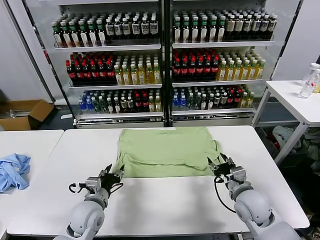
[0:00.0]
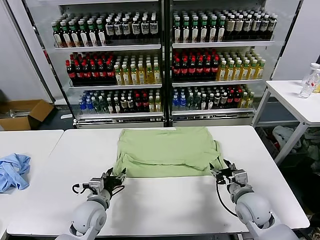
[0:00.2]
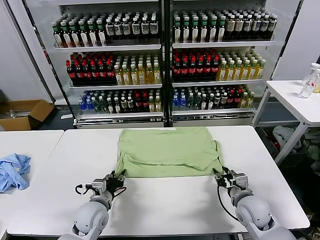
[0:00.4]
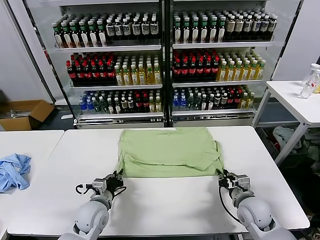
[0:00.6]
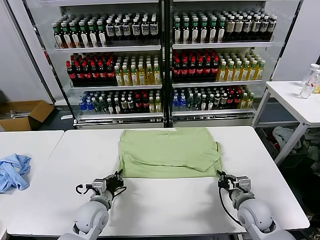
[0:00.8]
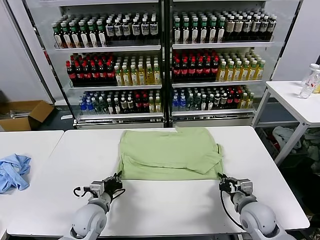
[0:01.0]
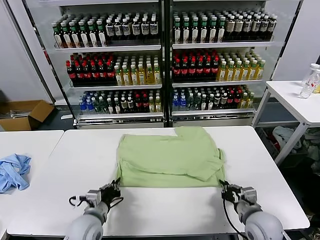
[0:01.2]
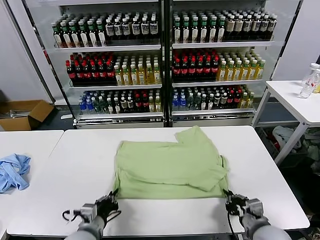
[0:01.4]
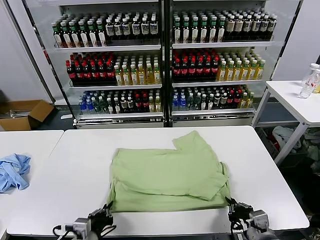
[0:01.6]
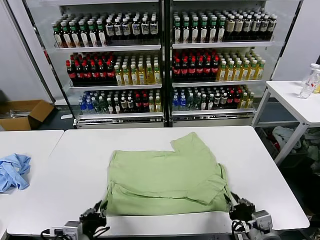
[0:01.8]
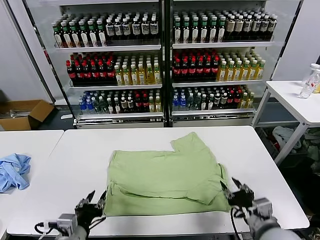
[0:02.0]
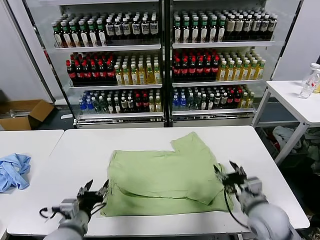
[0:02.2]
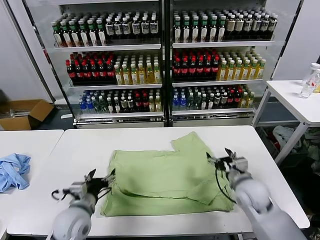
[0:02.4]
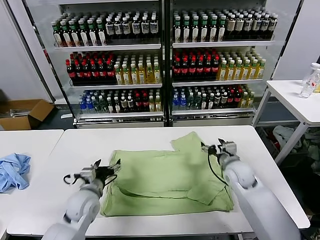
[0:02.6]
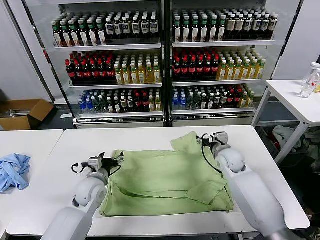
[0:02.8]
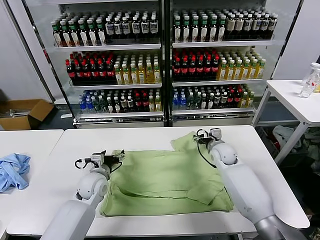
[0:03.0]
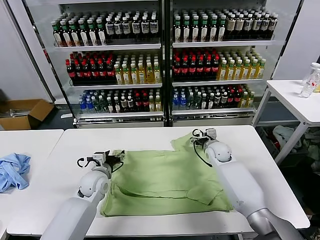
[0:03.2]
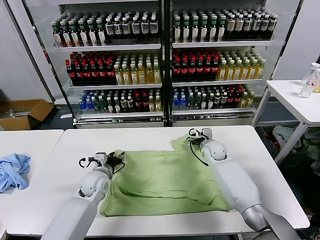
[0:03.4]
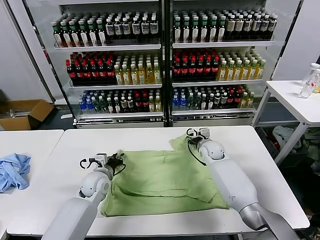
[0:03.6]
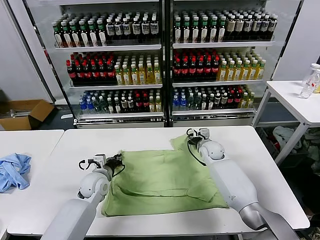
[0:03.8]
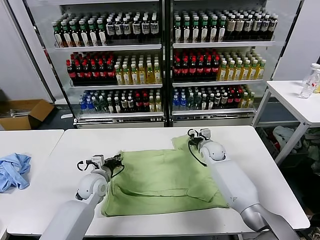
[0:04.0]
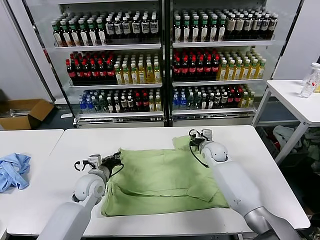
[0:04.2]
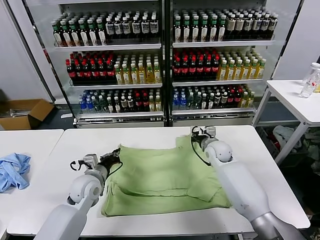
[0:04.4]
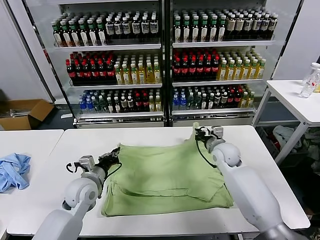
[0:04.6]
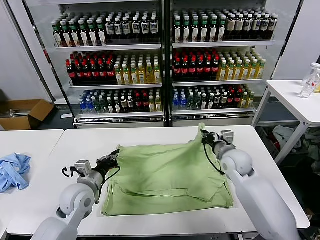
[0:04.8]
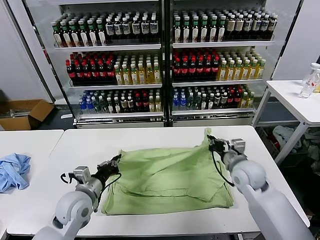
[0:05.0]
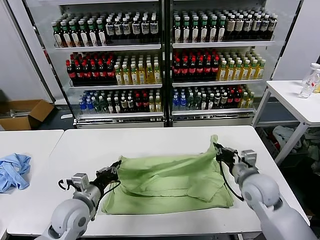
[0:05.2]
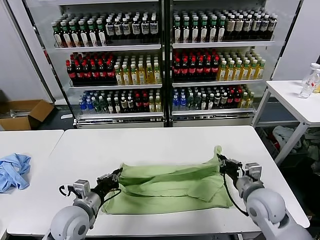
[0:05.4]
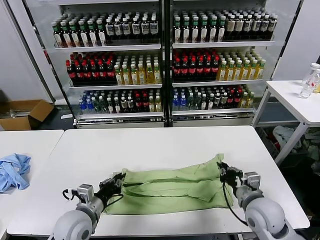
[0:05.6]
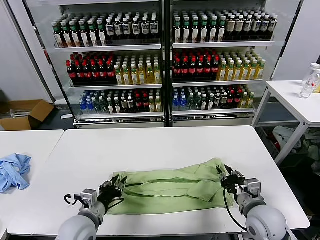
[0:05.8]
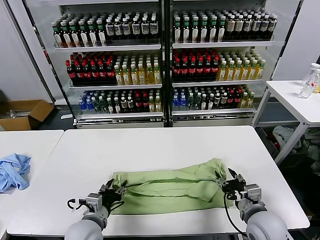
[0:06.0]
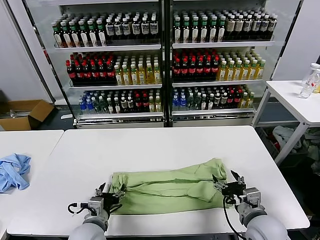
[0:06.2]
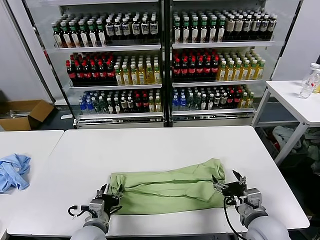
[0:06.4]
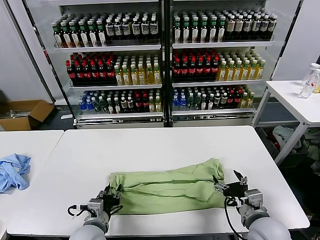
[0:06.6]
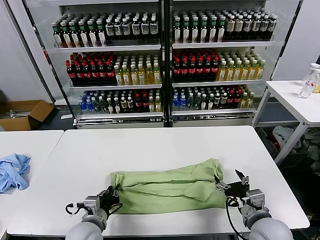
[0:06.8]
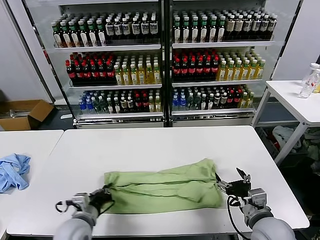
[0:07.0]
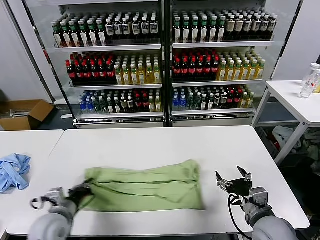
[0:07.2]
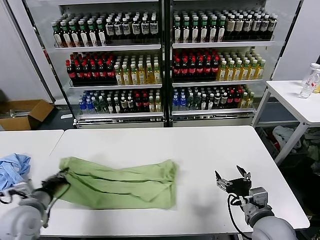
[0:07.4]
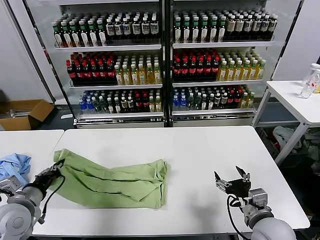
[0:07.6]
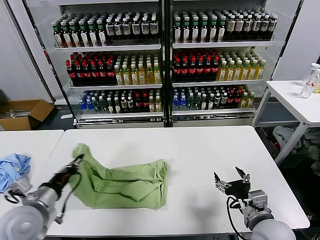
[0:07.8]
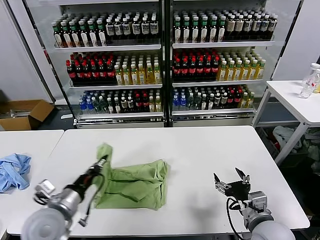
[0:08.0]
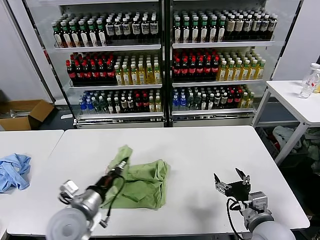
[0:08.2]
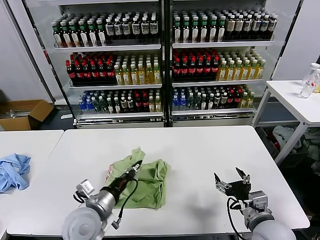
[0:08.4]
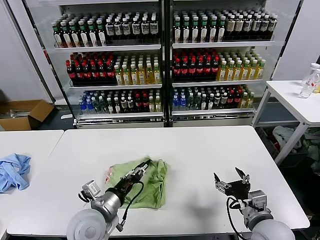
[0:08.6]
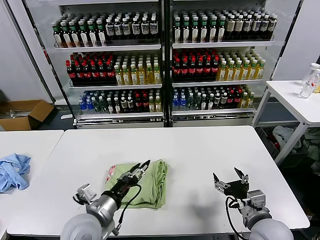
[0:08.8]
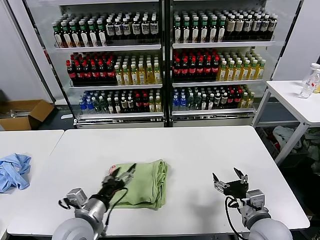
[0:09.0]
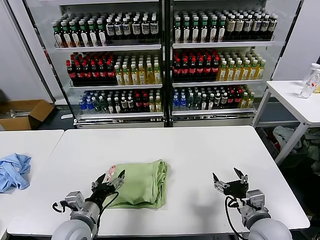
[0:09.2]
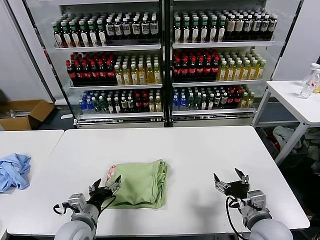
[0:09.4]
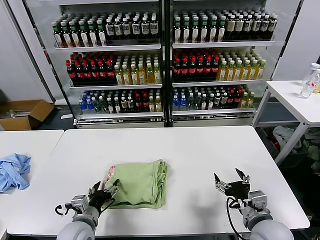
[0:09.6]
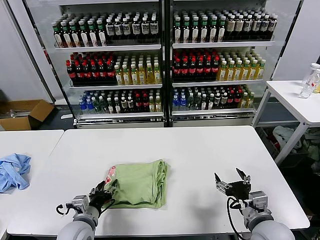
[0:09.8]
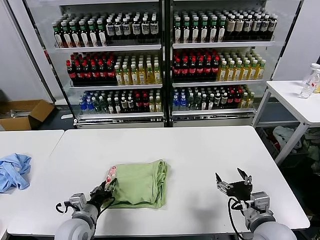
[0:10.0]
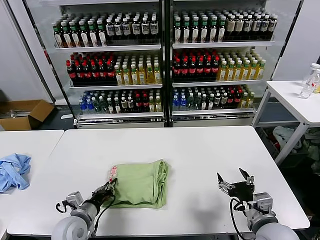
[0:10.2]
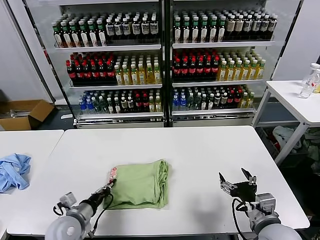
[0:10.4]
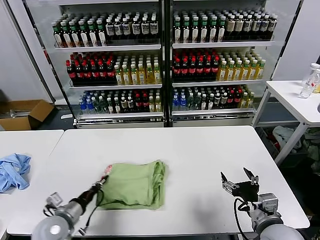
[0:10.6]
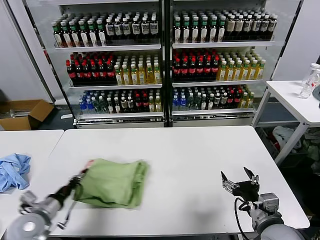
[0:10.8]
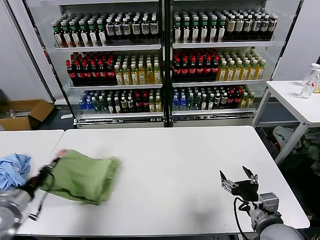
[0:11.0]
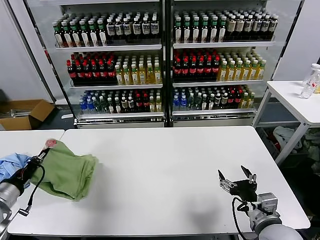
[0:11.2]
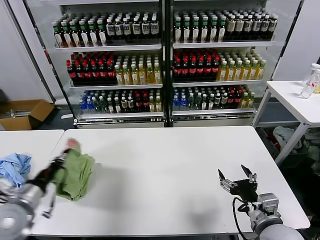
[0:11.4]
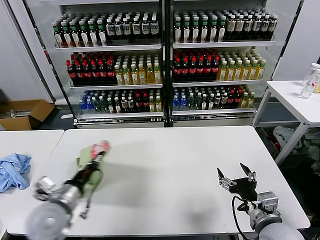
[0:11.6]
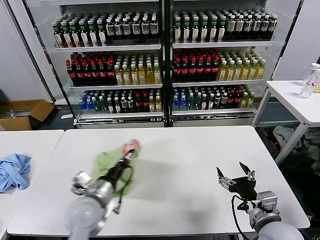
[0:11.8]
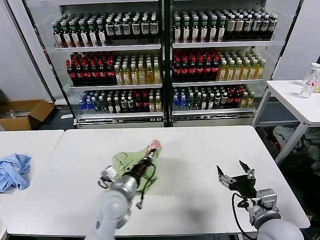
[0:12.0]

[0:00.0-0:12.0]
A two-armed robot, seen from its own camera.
Task of the whole recording: fold and organize the clothes.
Step, 0.0 to 1.6 s: Drag the clothes downward with both gripper.
Step, 2.0 to 4.0 s: use both grippers simultaneously to clamp the upper edge of the clothing fabric.
Step, 4.2 to 5.8 s: use both grippers to drag the upper edge of the fabric backward and fold it over the lower edge.
Step, 6.0 to 7.0 s: use the left gripper to clamp the left edge of the fabric.
Step, 7.2 to 8.6 s: use the left gripper to drag the left edge of the fabric to the left and folds it over the right edge.
0.0 to 1.6 s: The grippers both shift backward by roughly 15 cm. The right gripper closes up. Meanwhile the left gripper closes up.
1.6 to 3.0 s: The right gripper is displaced forward by some 35 cm, and opens its fingers. Meanwhile the left gripper heads forward, covering roughly 25 cm, and opens.
3.0 to 4.4 s: The right gripper closes its fingers. The left gripper closes its fingers.
4.4 to 6.0 s: The left gripper heads backward, covering roughly 15 cm, and opens, while the right gripper is displaced backward by some 25 cm, and opens up.
6.0 to 7.6 s: The left gripper moves to the left and upward, some 20 cm, and closes up.
7.6 to 9.0 s: The left gripper shifts approximately 15 cm to the right, and opens.
9.0 to 10.4 s: The left gripper moves downward and to the left, some 10 cm, and closes up.
10.4 to 12.0 s: The left gripper goes about 15 cm to the right and upward.

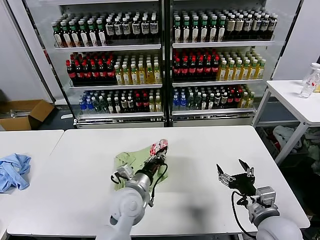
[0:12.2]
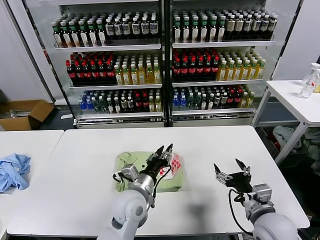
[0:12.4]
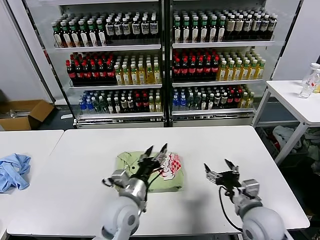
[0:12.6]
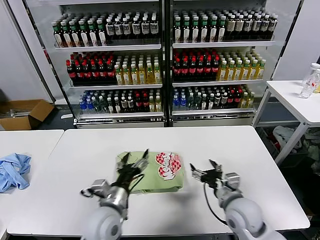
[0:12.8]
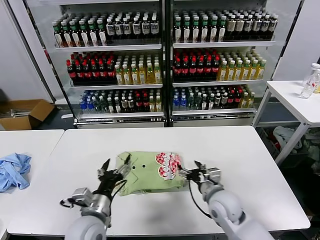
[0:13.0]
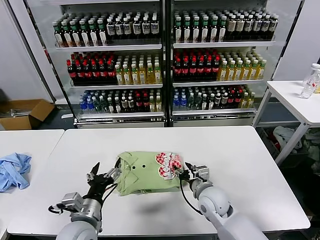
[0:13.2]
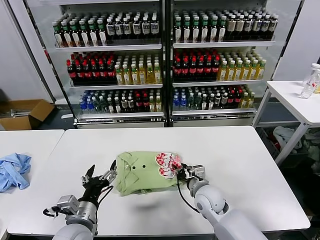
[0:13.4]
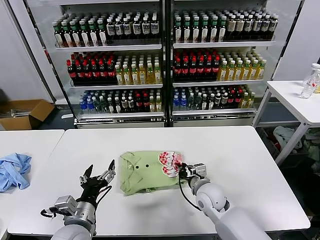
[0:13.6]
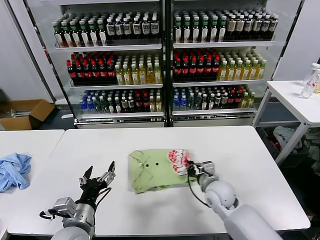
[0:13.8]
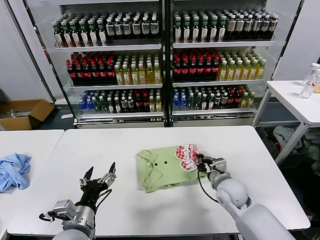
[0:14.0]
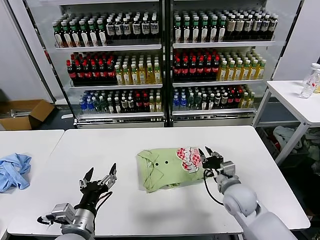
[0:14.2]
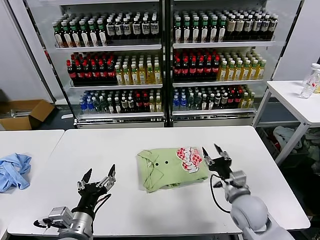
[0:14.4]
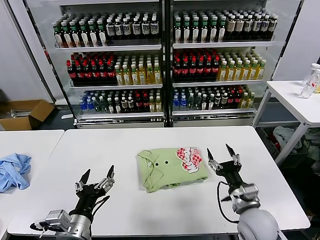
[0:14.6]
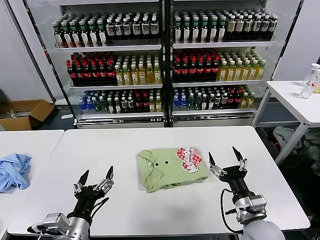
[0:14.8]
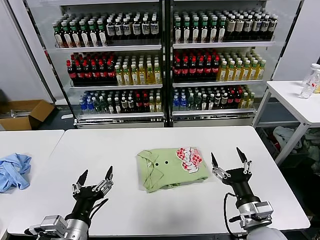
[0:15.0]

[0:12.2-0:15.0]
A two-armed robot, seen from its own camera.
Task of the whole recording: fold and organize the clothes.
Step, 12.6 to 14.0 s: Drag the clothes to the center of the table.
12.2 to 13.6 s: The left gripper heads to the left and backward, covering about 15 cm, and opens. Meanwhile the right gripper travels forward, to the left and downward by about 20 cm, and closes.
13.6 to 15.0 s: The right gripper heads backward, to the right and upward, covering roughly 20 cm, and opens up. Meanwhile the left gripper is displaced backward by roughly 5 cm.

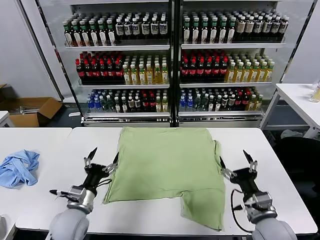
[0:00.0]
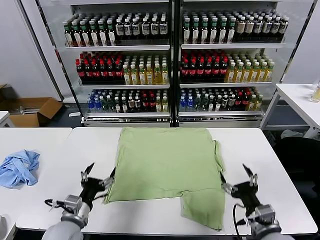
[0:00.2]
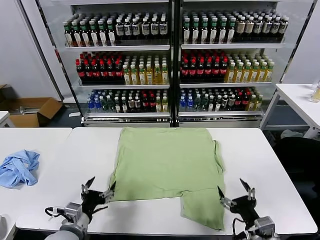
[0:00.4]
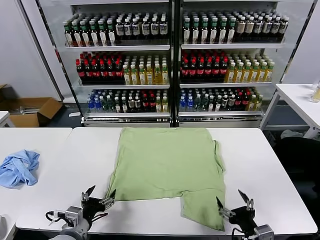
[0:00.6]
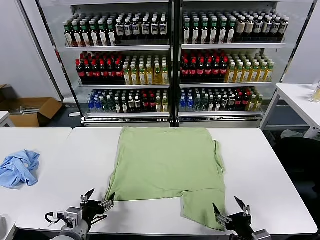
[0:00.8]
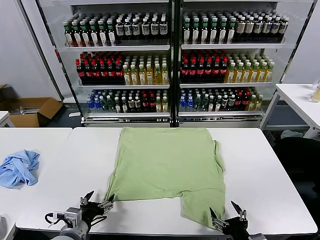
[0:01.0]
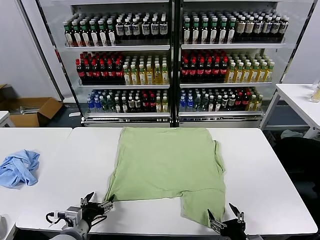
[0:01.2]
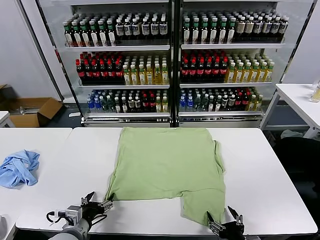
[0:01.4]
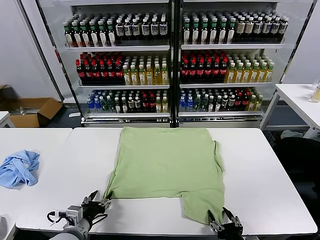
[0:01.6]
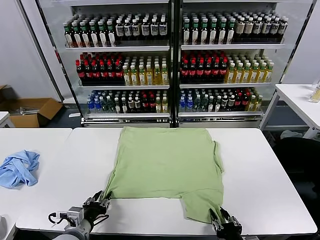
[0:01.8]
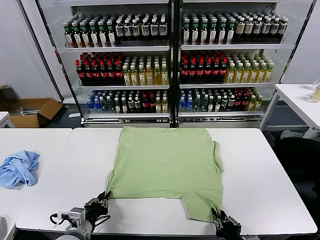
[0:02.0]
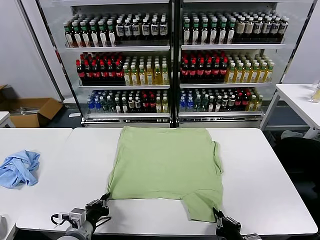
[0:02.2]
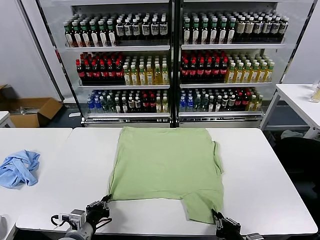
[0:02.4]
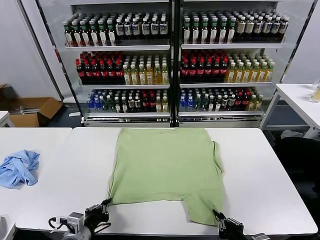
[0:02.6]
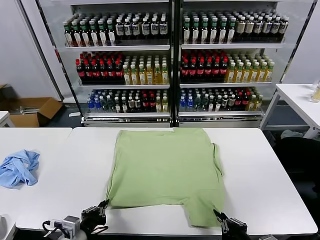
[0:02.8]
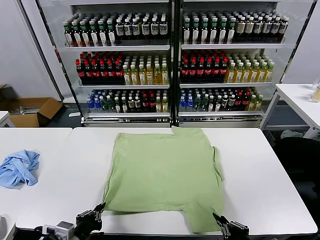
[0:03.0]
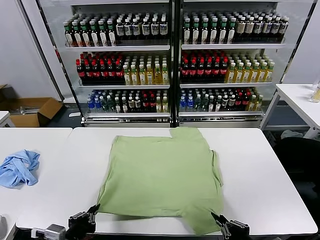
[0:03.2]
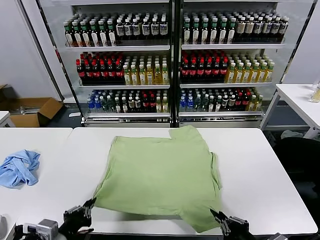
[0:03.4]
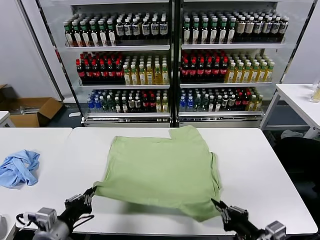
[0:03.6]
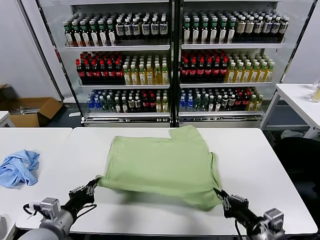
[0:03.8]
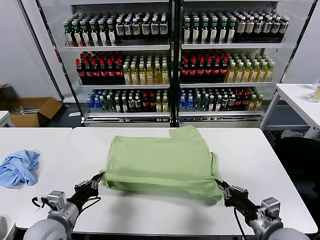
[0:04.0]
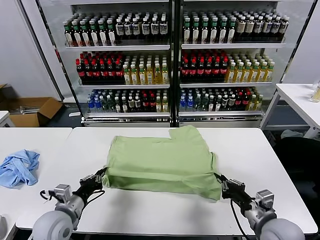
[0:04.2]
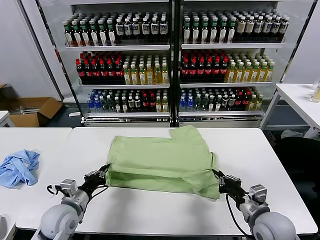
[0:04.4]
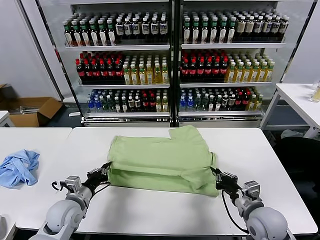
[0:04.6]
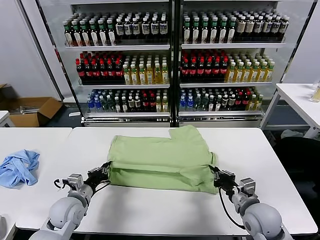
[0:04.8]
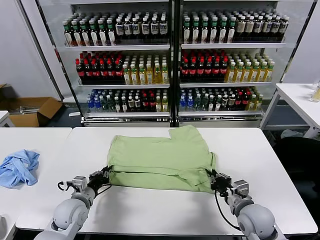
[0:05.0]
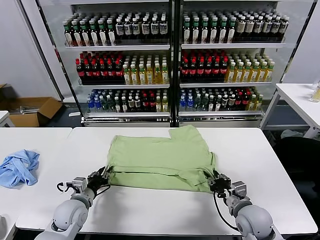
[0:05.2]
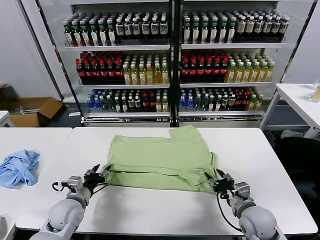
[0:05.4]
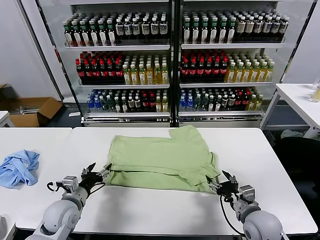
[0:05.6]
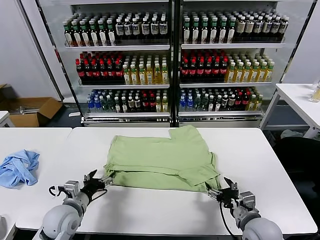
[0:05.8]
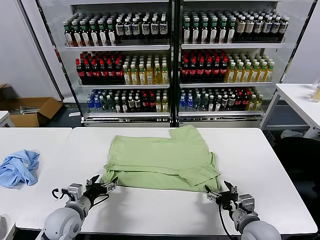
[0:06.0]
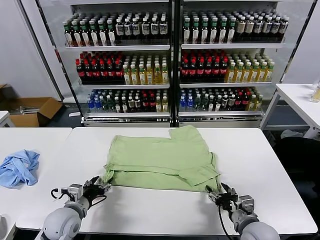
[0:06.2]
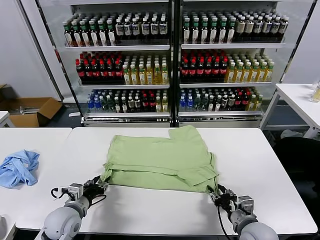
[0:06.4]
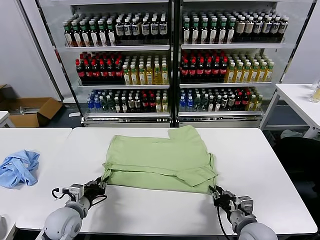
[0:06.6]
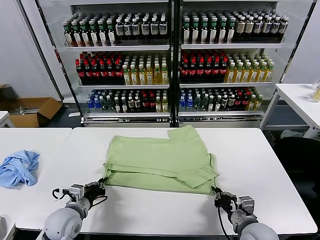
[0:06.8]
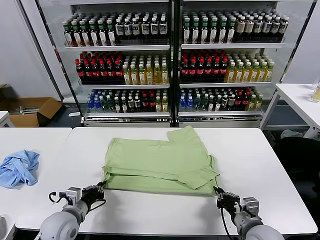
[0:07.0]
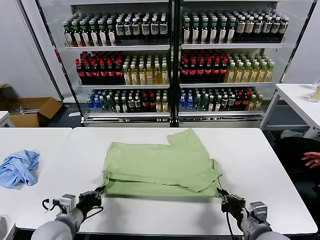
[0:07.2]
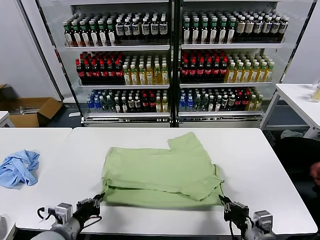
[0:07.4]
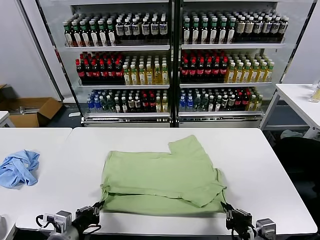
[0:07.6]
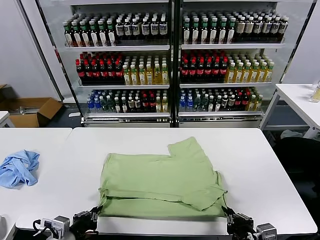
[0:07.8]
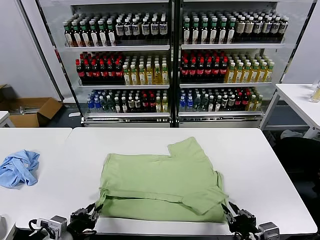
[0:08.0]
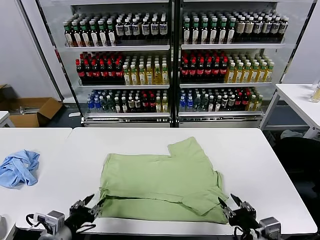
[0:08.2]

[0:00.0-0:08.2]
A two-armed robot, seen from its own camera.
Task of the whole recording: fold and organize the clothes.
Step, 0.0 to 2.6 s: use both grippers simultaneously to clamp the lower edge of the clothing fabric.
Step, 2.8 to 5.4 s: use both grippers to drag the lower edge of the fabric forward and fold it over the upper edge.
Step, 5.6 to 8.0 s: Drag the clothes downward with both gripper.
1.6 to 3.2 s: The right gripper travels upward by approximately 10 cm, and closes its fingers; the left gripper is displaced backward and upward by about 10 cm, and closes its fingers.
3.2 to 5.0 s: The grippers both shift forward and downward by approximately 20 cm.
5.0 to 6.6 s: The left gripper opens, then closes once more. Meanwhile the right gripper is displaced backward by approximately 5 cm, and opens, then closes again.
6.6 to 8.2 s: The left gripper is displaced backward and upward by approximately 15 cm. Meanwhile the right gripper is displaced upward and backward by approximately 10 cm, and opens.
